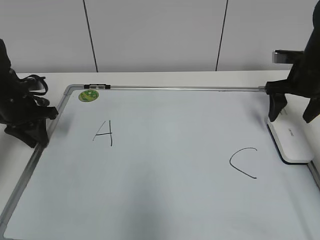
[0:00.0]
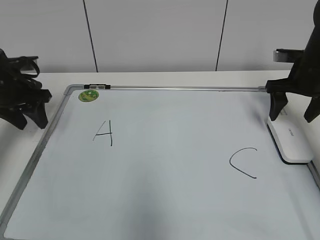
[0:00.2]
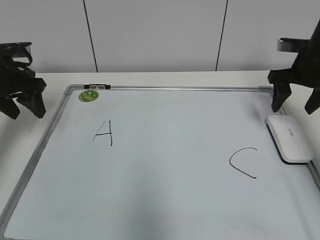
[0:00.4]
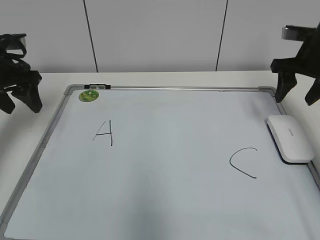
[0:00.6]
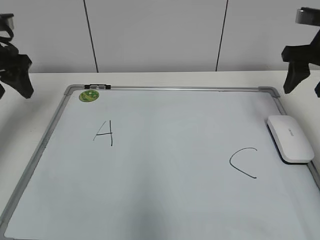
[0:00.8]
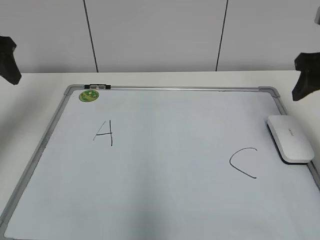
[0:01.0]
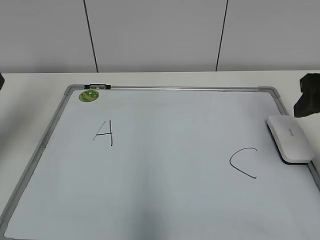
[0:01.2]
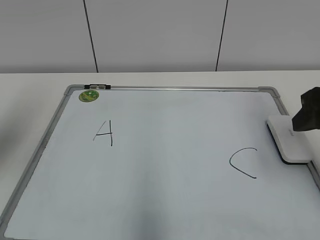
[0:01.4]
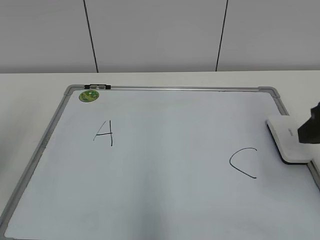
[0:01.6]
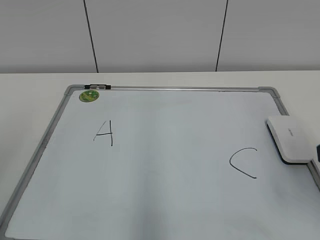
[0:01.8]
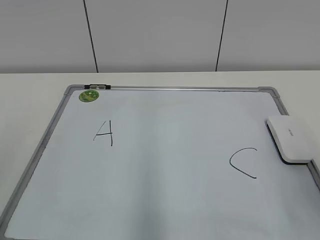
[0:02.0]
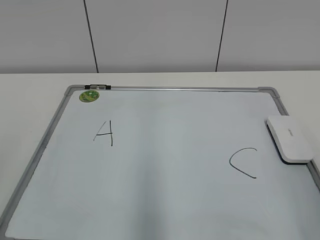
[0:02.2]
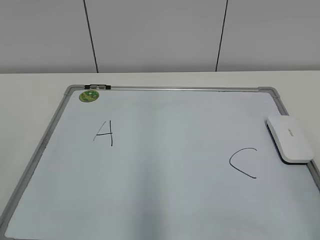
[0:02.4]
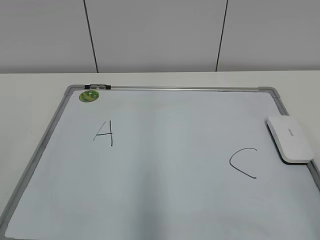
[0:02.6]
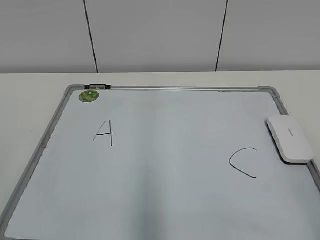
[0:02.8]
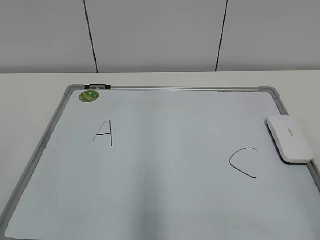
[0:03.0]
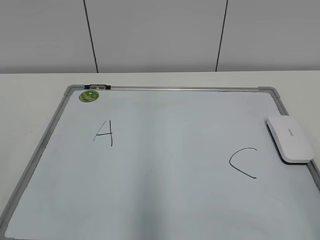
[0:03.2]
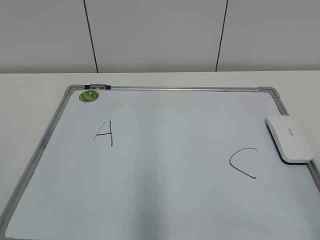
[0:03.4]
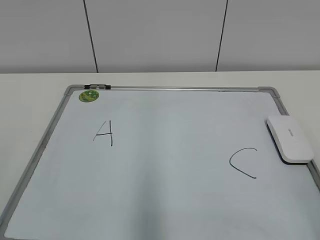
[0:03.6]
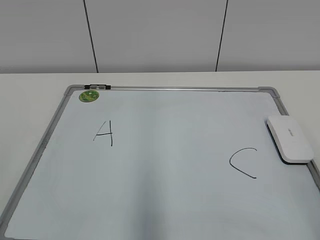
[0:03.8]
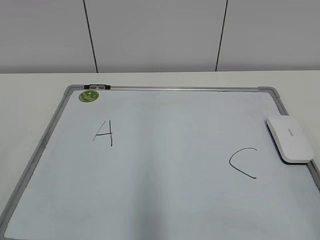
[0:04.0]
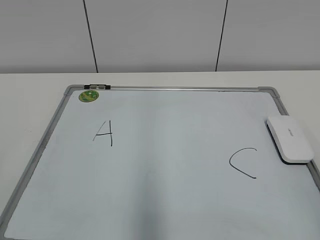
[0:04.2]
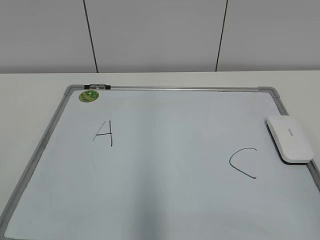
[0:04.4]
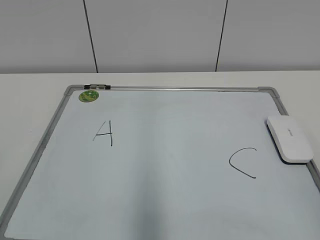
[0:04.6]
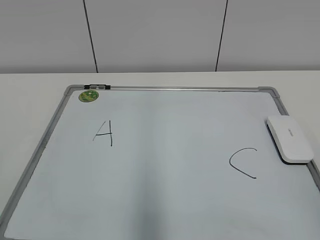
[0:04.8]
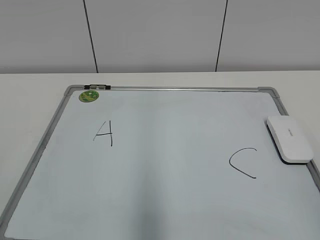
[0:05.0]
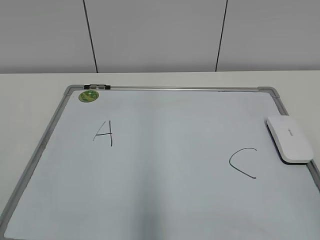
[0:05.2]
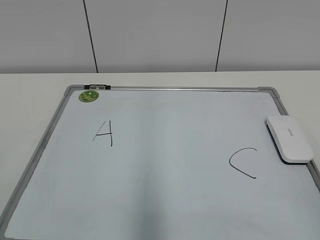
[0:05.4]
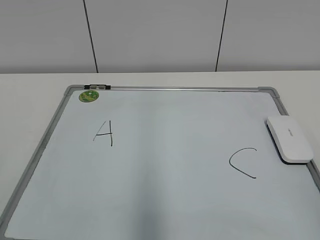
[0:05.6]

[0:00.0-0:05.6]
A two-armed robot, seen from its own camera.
Task of the whole recording: pick up the eraser on the blackboard and erase the letter "B".
0:00.0 to 0:01.4: The right gripper moves backward and upward, approximately 20 cm, and closes its fingers; the left gripper moves upward and backward, about 25 cm, and opens up.
0:01.4 to 0:02.8: The two grippers go about 20 cm backward.

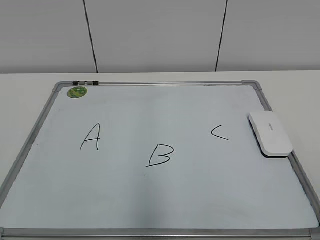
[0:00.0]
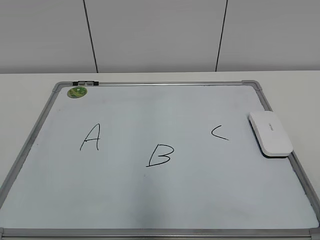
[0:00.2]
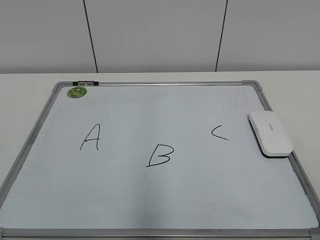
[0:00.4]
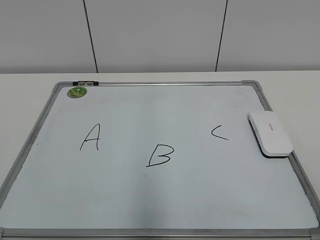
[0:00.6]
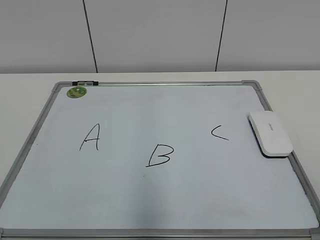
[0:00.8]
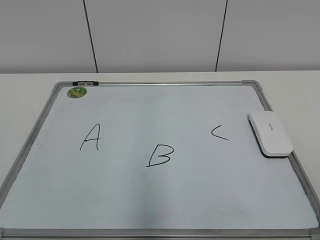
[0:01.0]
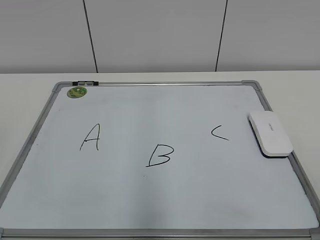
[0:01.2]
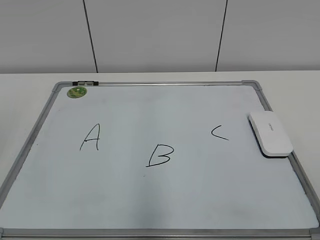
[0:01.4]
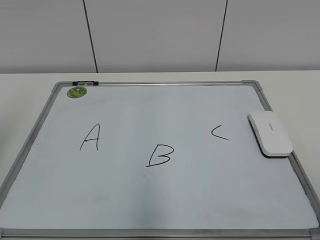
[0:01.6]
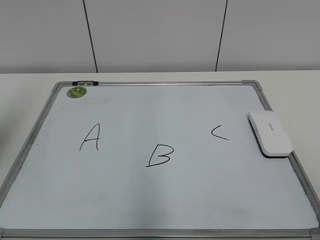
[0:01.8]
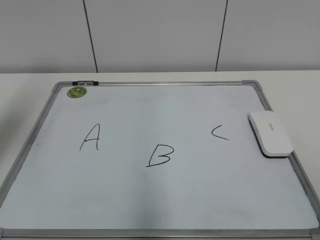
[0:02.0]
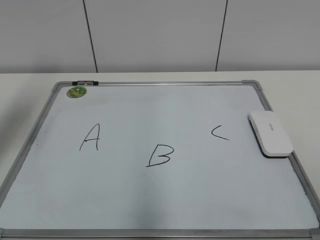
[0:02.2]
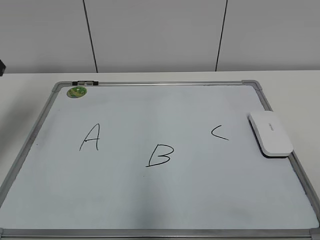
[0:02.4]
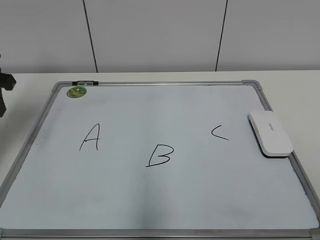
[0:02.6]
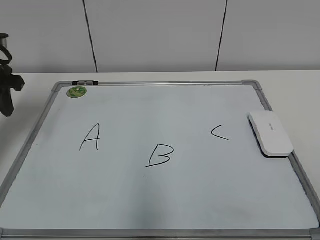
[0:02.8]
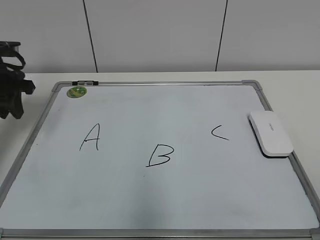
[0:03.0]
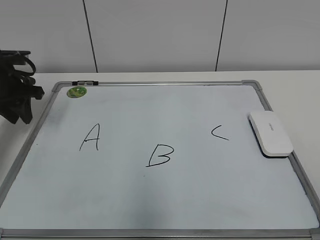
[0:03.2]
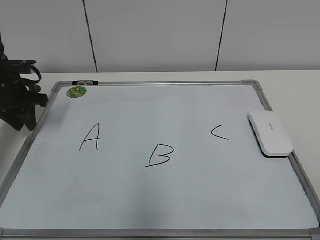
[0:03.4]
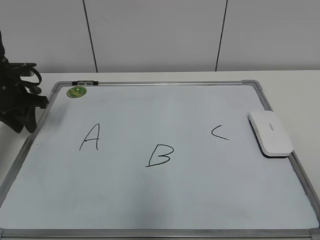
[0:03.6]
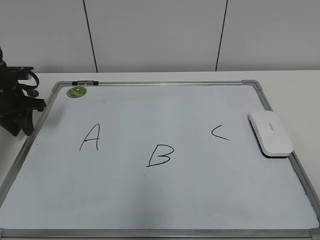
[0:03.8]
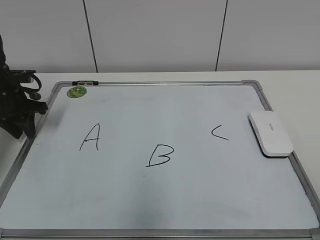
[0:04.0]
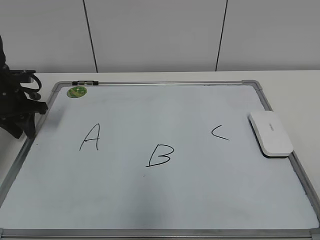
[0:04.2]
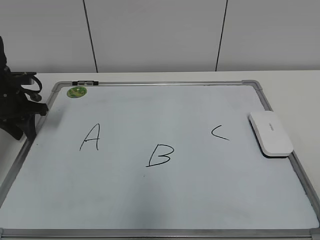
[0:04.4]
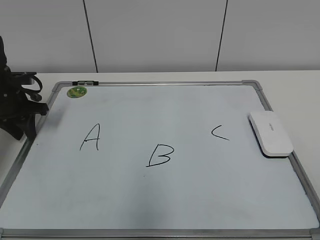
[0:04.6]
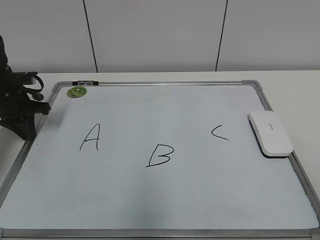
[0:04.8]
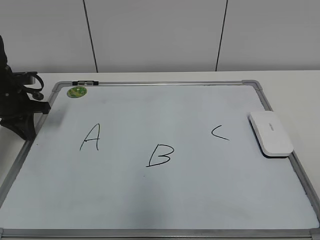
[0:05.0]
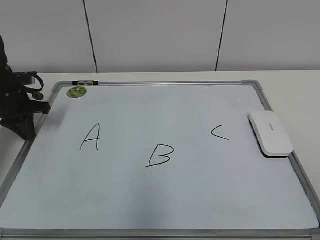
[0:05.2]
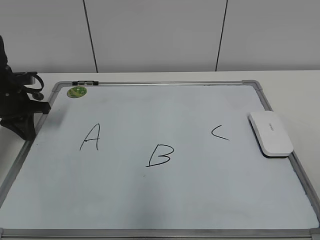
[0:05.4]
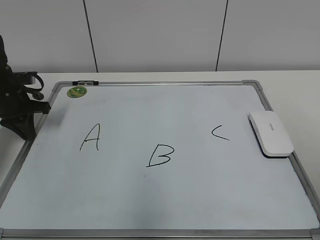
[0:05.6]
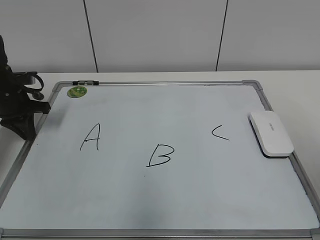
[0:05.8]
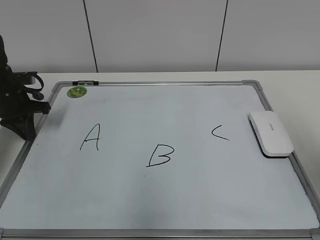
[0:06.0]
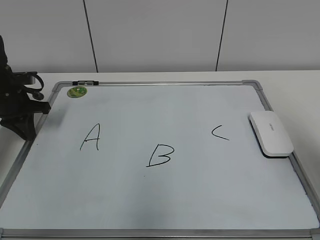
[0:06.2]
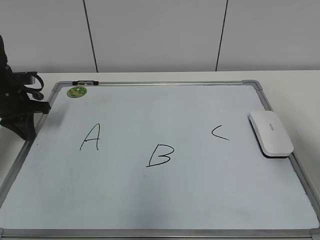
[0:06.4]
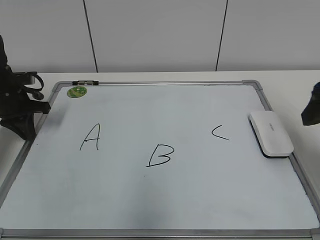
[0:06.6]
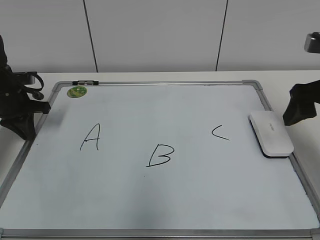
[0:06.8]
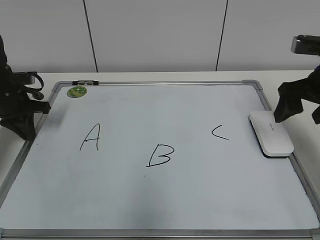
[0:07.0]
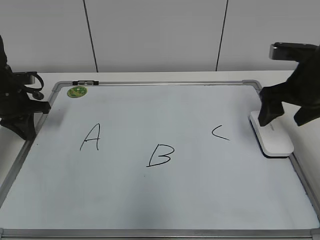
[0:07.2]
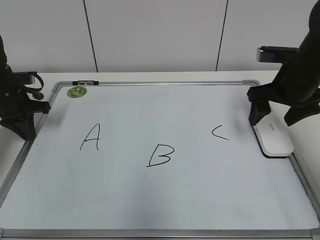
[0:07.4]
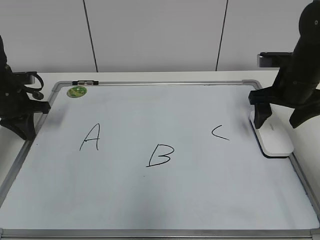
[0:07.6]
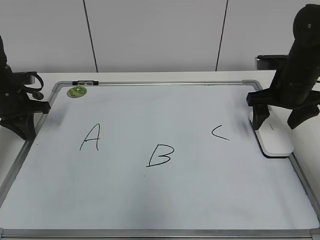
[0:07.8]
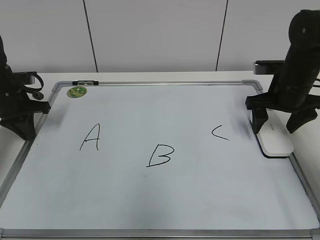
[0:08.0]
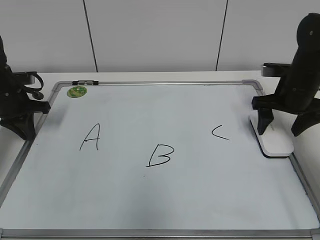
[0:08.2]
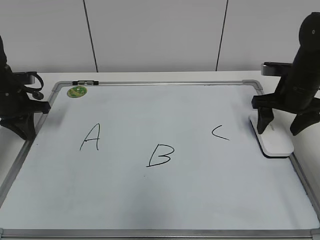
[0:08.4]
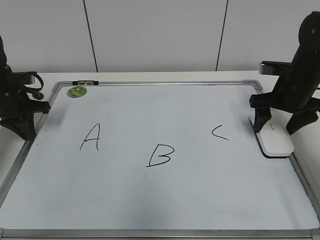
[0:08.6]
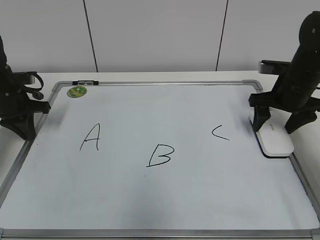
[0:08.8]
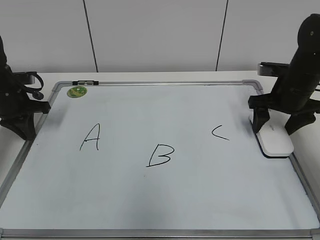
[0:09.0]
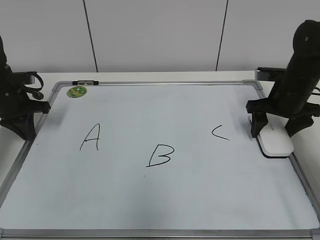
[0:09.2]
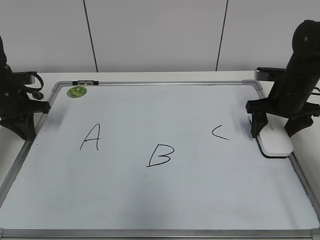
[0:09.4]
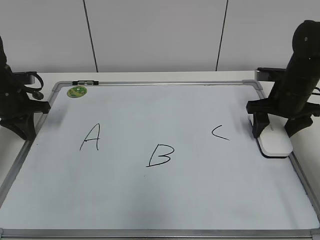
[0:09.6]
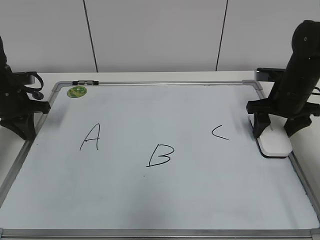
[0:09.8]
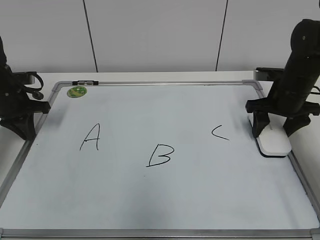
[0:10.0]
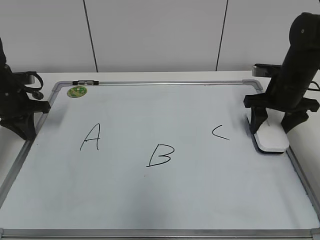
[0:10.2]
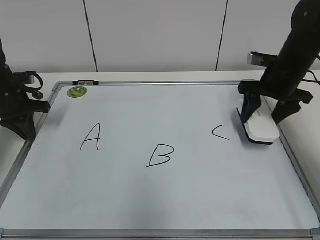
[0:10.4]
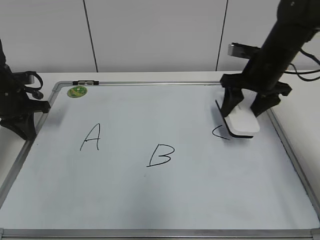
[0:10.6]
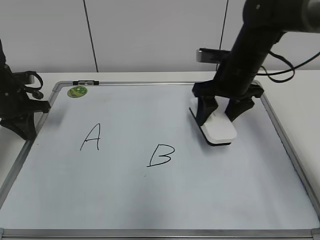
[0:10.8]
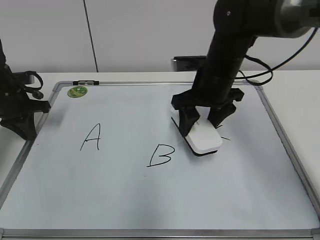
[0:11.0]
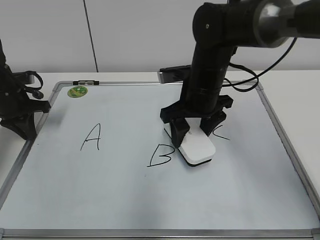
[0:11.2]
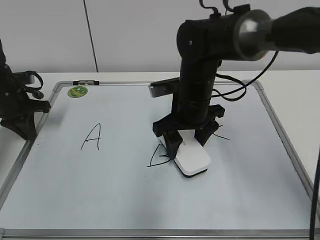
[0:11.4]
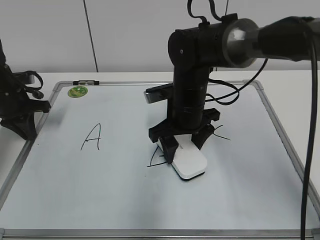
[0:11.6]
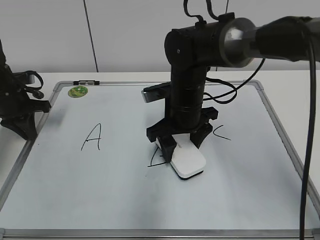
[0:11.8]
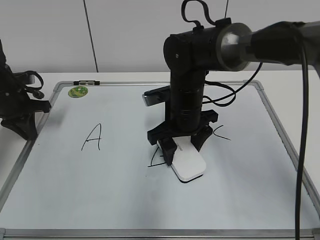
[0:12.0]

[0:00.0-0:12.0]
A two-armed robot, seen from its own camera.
Task of the whole recording: pick up the eraser on the blackboard and erase the letter "B".
Step, 0:00.0 to 0:04.8: Hold the drawing board steady with your left hand.
Step, 0:05.0 to 0:09.8: Grab the eraser with your right hand.
0:01.6 to 0:03.0: The left gripper heads forward and downward, covering approximately 30 cm.
0:03.0 to 0:04.4: The left gripper is displaced downward by some 10 cm.
0:04.4 to 0:06.0: The right gripper goes approximately 15 cm forward, and closes. The left gripper closes its fingers.
0:06.0 to 0:07.6: The right gripper travels forward and downward by about 25 cm, and opens.
0:07.6 to 0:09.0: The grippers stay close to where they were, moving slightly.
0:09.0 to 0:10.4: The right gripper closes its fingers.
0:10.4 to 0:12.0: The right gripper heads to the left, covering about 20 cm.

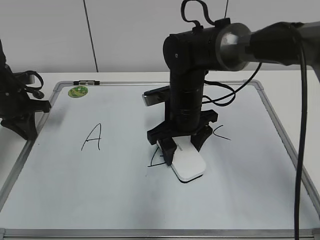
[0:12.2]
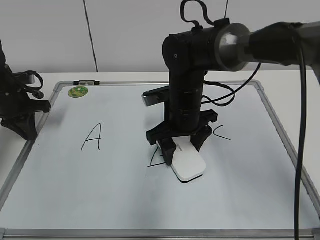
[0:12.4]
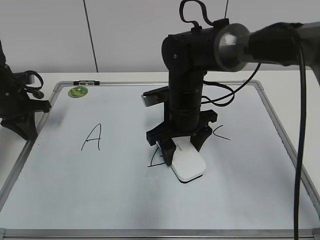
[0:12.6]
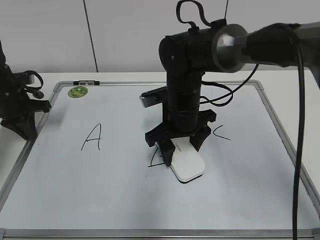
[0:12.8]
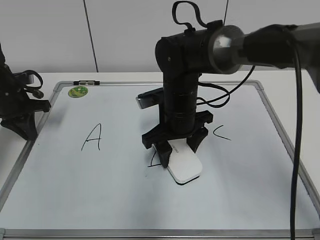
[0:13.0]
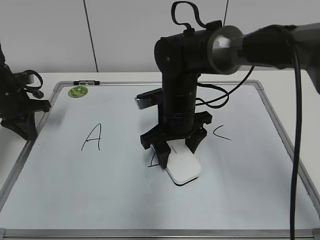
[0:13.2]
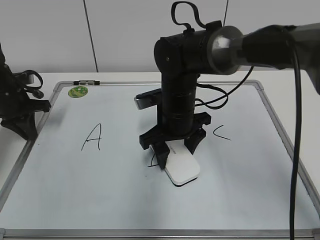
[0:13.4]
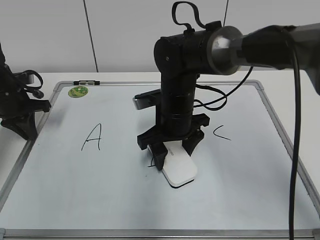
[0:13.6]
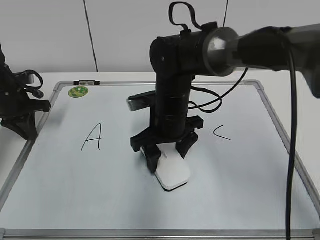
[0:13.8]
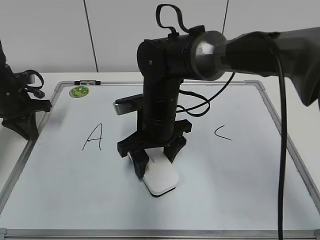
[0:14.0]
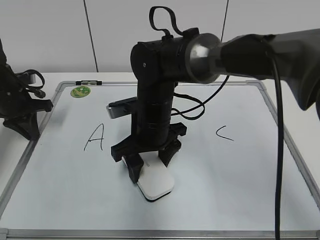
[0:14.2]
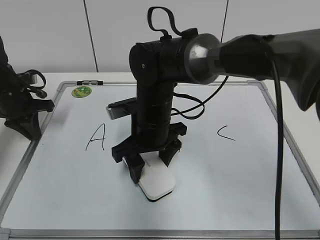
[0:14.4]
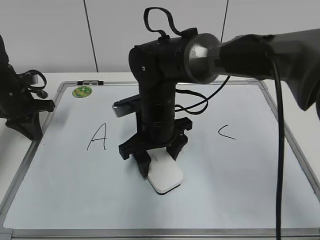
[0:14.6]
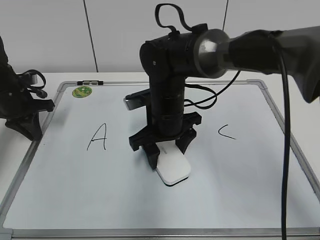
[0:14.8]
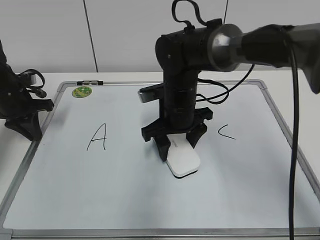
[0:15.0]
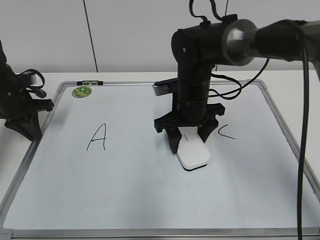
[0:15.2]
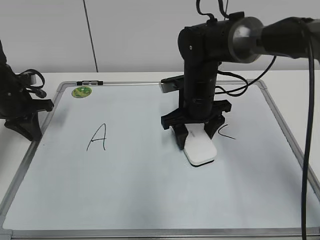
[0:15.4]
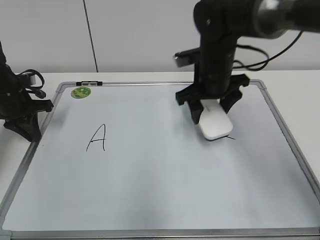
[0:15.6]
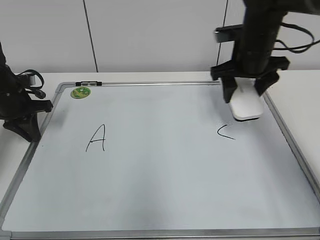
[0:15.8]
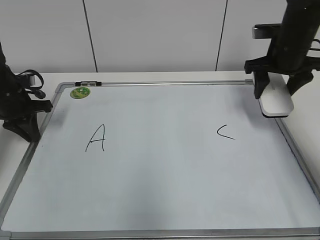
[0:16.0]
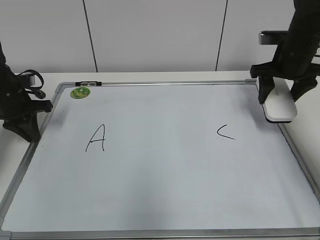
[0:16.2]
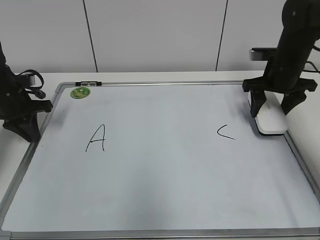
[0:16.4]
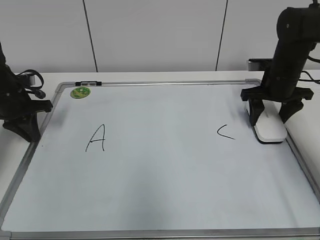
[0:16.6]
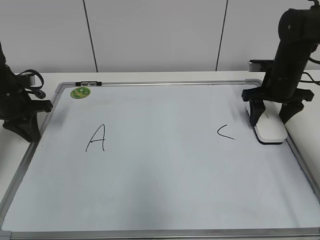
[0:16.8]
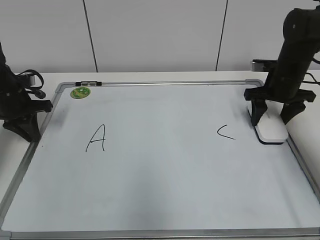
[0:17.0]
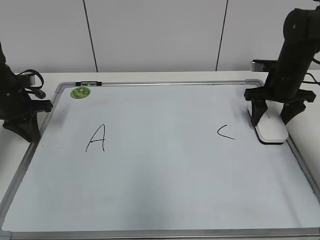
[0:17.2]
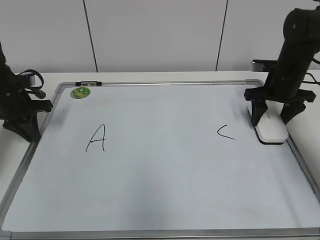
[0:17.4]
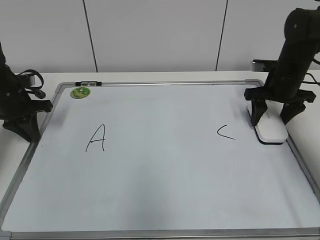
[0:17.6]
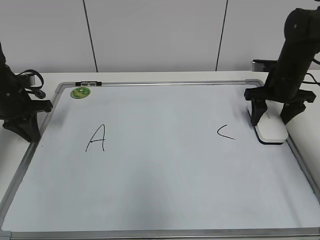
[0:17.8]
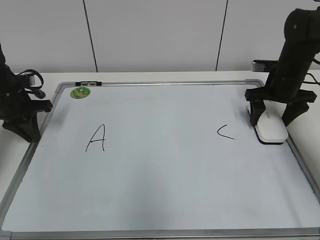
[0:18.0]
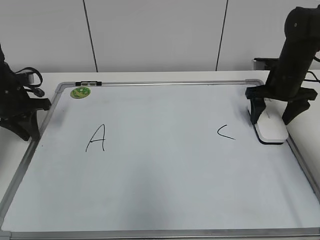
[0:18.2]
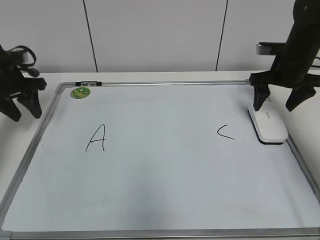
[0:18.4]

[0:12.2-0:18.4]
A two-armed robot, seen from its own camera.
Task of the whole recording: pick up the eraser on the blackboard and erase the letter "B".
Step, 0:12.2 to 0:15.2: Erase the letter B with your right hand.
Step, 0:18.0 to 0:18.2: Put down the eraser with your right hand.
0:12.2 to 0:13.8: The grippers move only a little.
0:13.8 to 0:15.4: The right gripper goes approximately 5 cm to the right.
0:15.4 to 0:16.8: The right gripper is displaced to the right by roughly 20 cm.
0:16.8 to 0:18.4: The right gripper opens up. Meanwhile the left gripper opens up.
